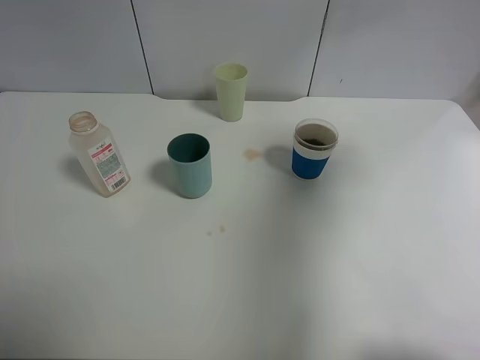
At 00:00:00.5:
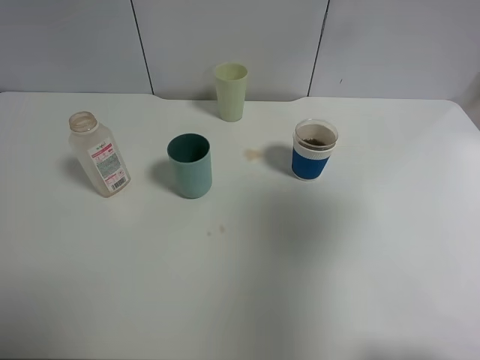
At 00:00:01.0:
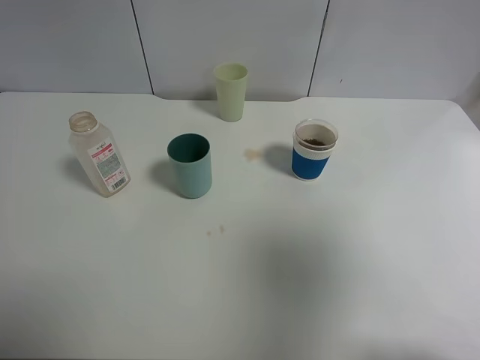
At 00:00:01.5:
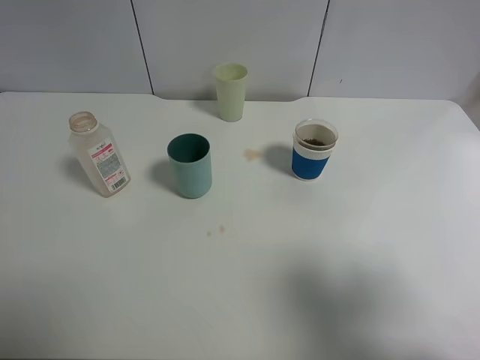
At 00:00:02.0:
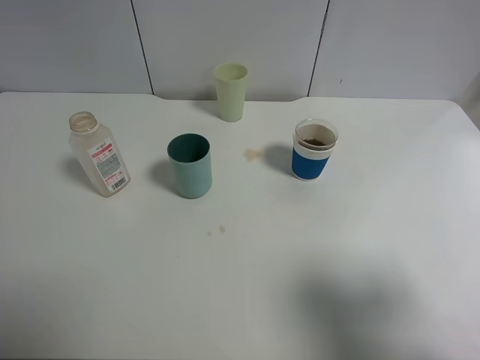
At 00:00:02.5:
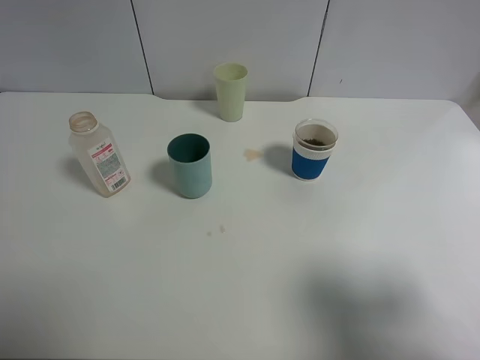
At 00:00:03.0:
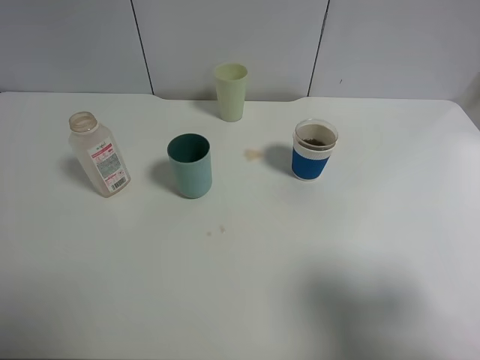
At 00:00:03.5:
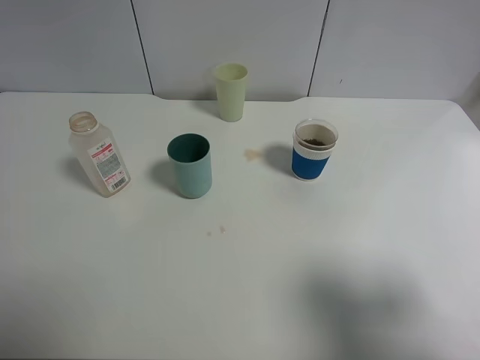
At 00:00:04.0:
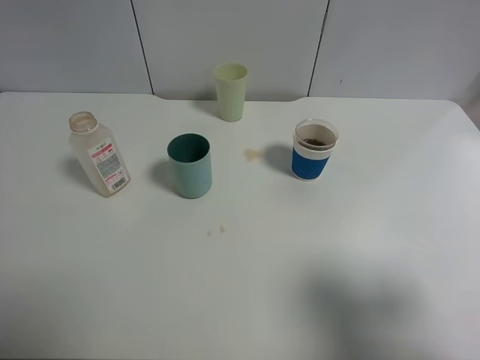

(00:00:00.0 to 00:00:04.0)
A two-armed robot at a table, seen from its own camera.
Task of the whole recording: use a clamp to hold the bottle of the drink, pour the beverage into a random cup, then clamp the cup containing the drink and pour the drink into another random cup.
00:00:00.0 - 00:00:02.0: The right gripper is displaced backward and downward by approximately 25 cm.
